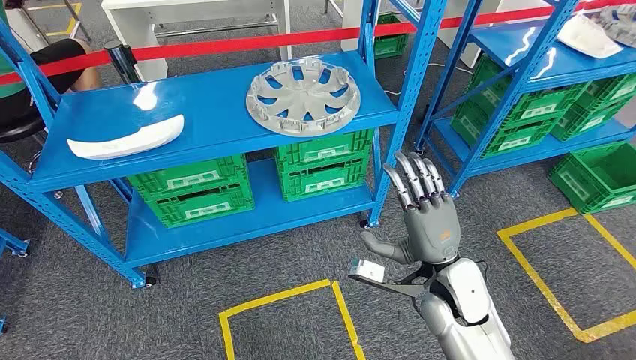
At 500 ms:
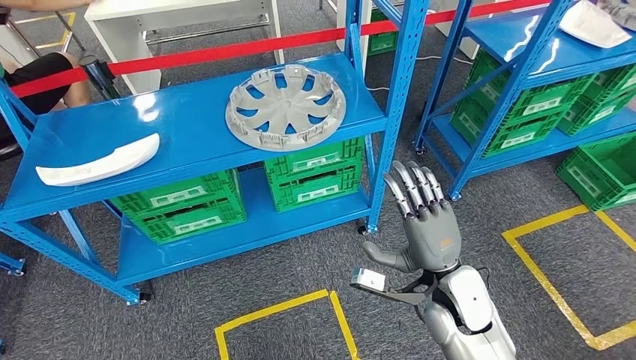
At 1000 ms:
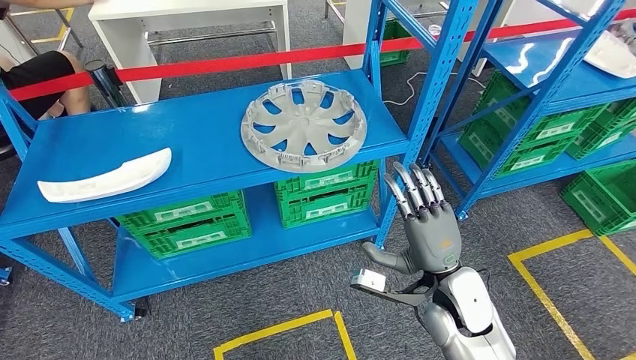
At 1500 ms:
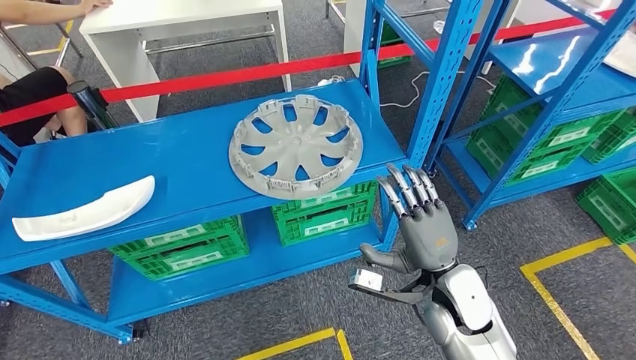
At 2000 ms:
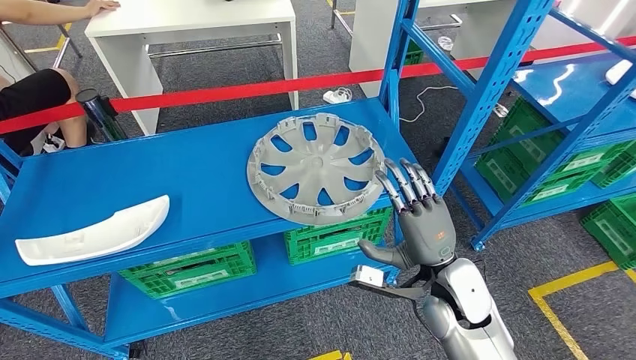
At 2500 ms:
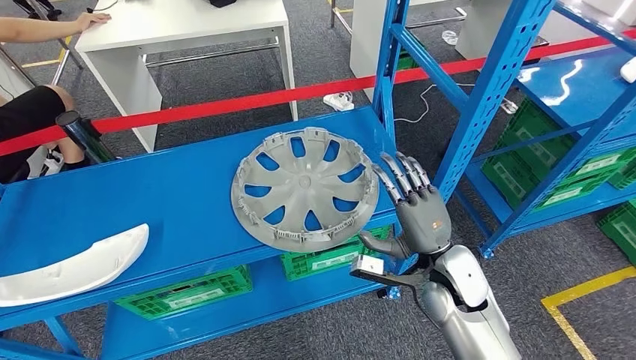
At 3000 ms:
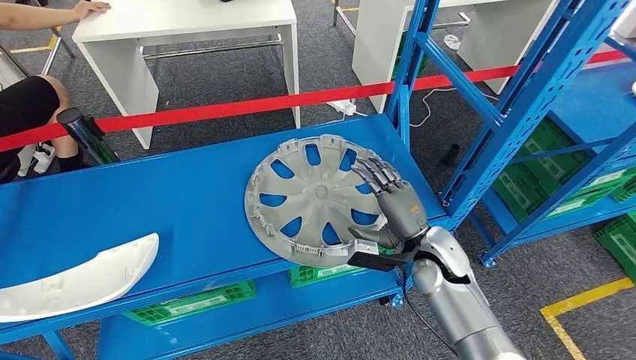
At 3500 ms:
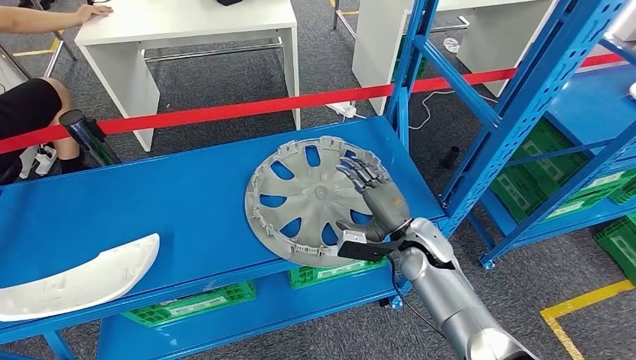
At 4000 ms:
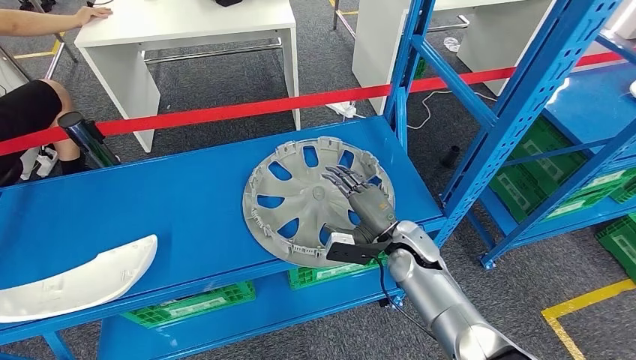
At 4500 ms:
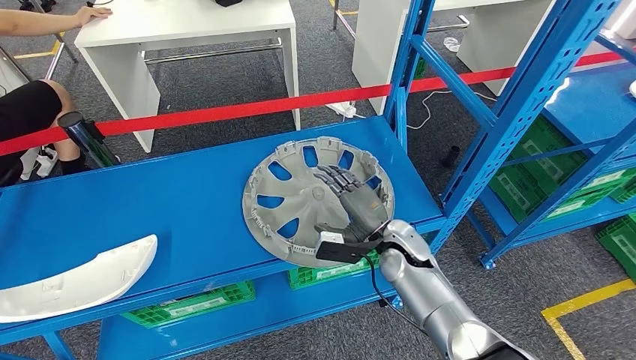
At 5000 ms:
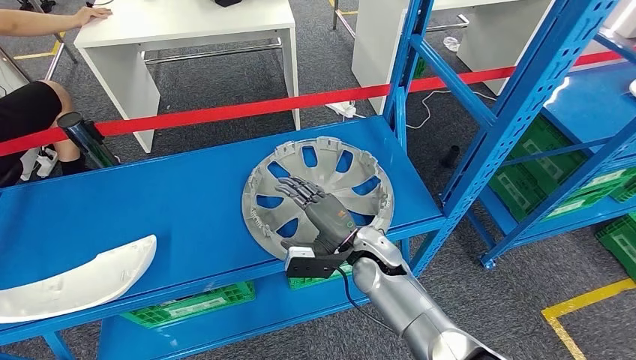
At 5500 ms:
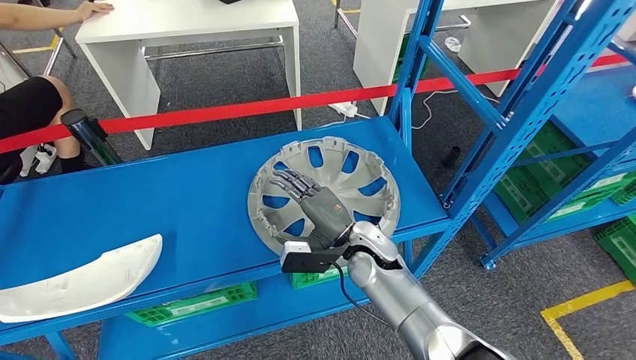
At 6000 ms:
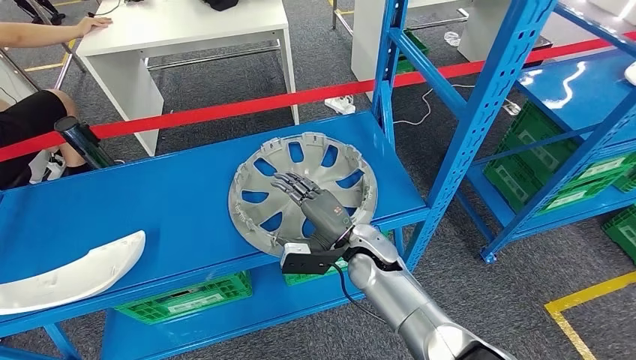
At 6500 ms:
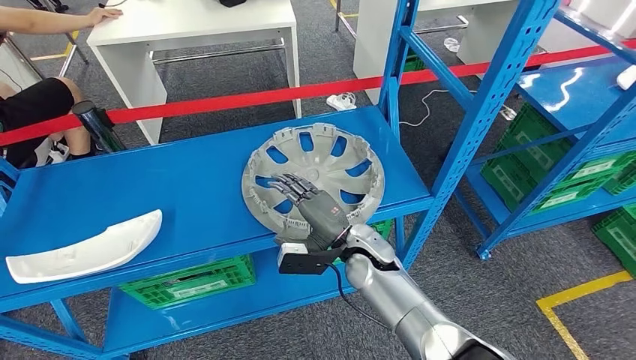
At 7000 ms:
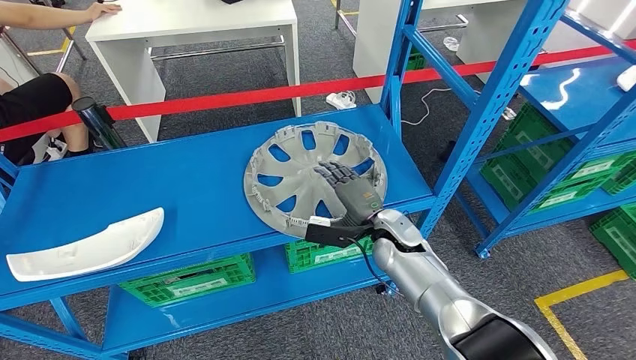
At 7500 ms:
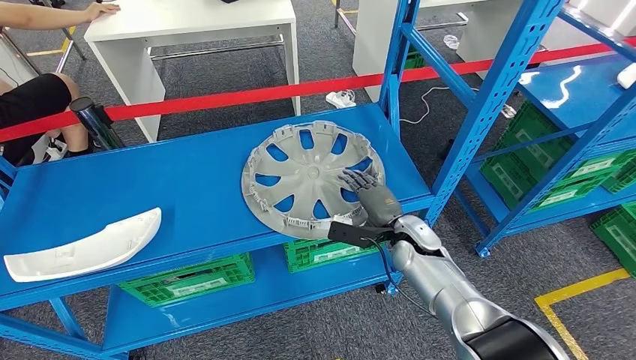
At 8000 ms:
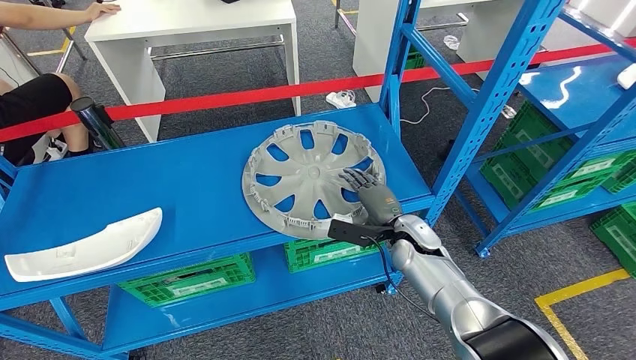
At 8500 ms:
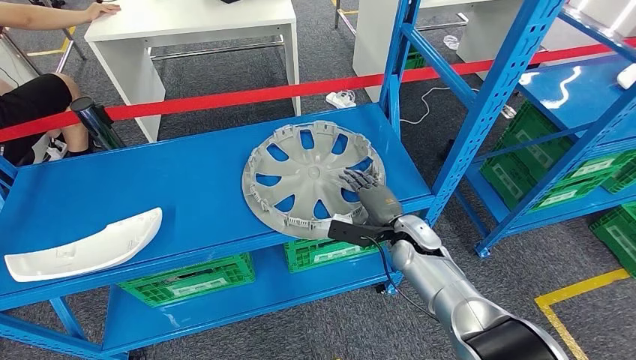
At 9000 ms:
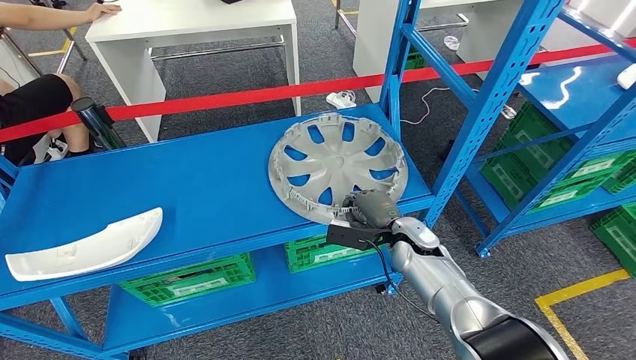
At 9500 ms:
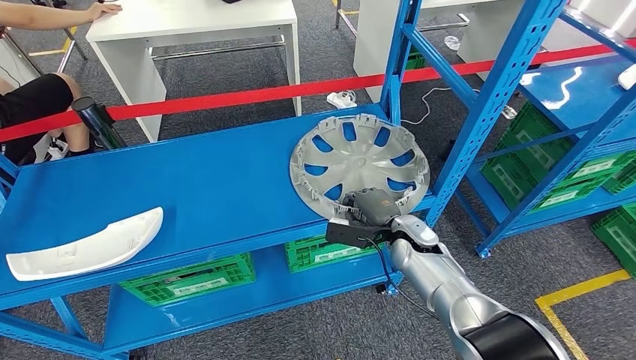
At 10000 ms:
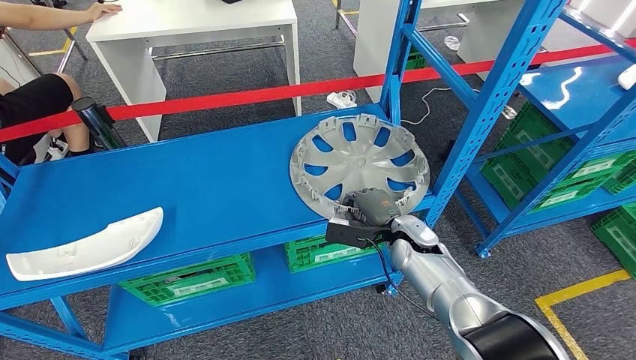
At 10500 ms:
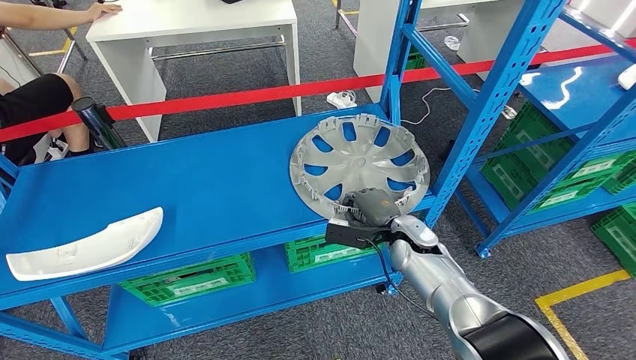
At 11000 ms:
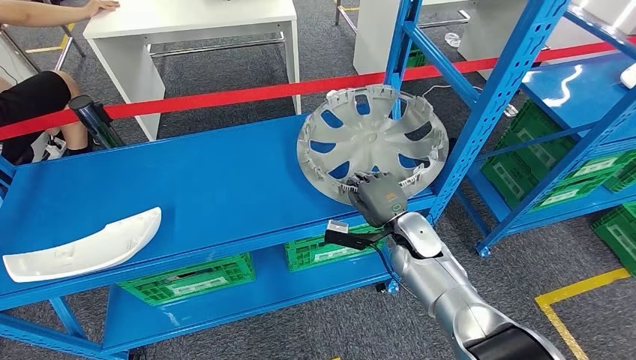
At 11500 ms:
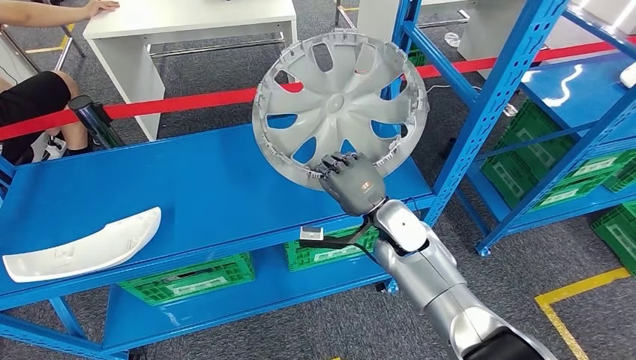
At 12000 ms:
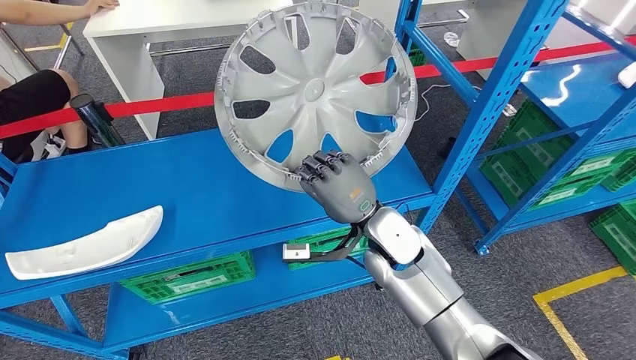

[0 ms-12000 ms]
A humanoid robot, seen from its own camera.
8000 ms to 10000 ms: The hands move only a little.

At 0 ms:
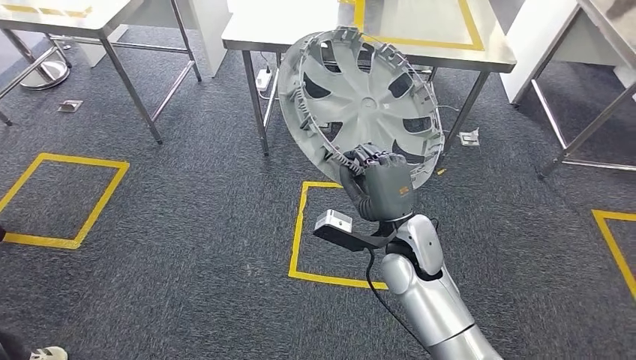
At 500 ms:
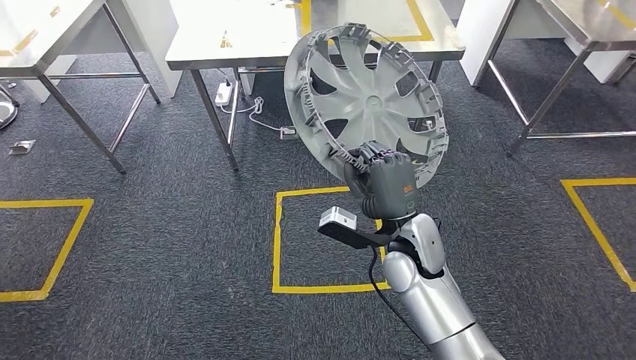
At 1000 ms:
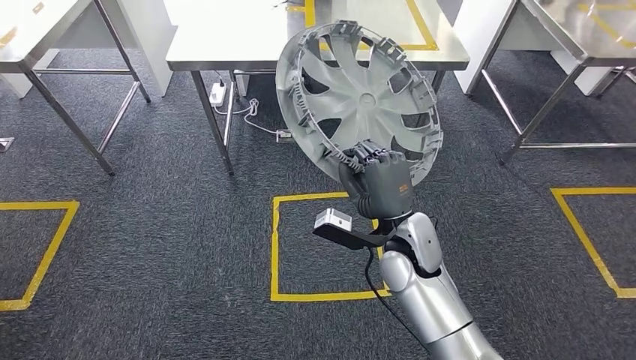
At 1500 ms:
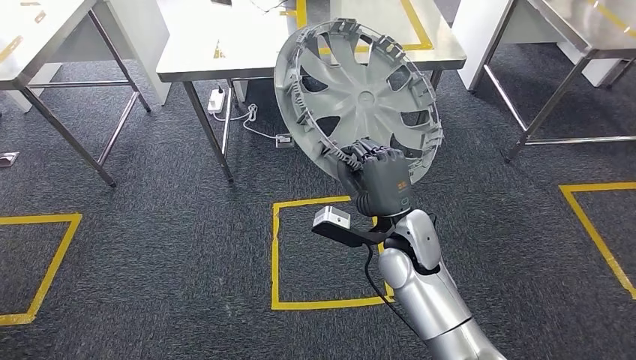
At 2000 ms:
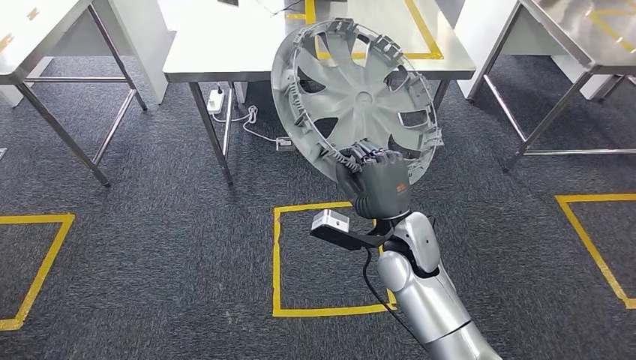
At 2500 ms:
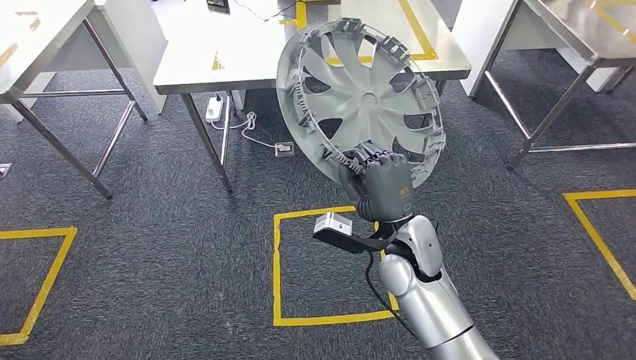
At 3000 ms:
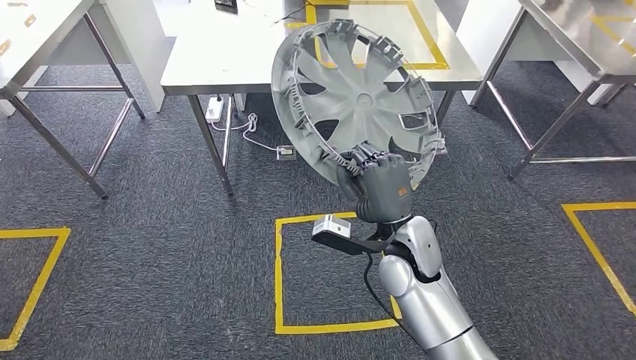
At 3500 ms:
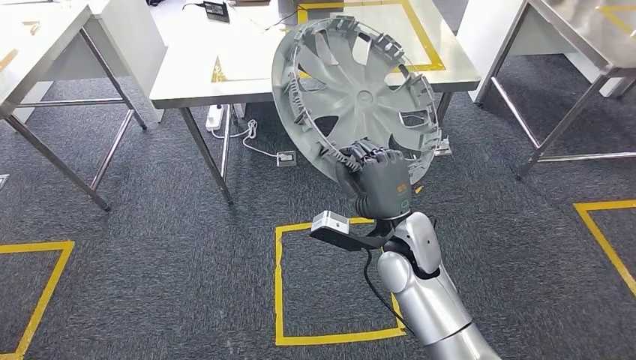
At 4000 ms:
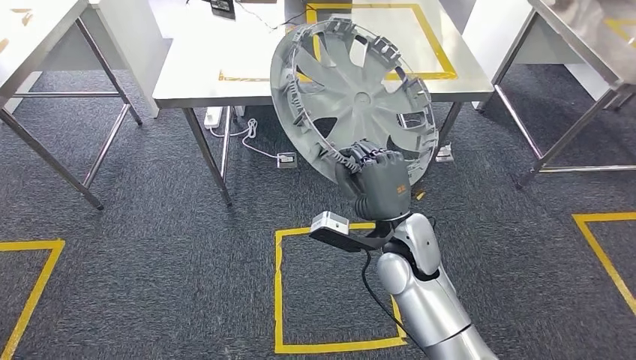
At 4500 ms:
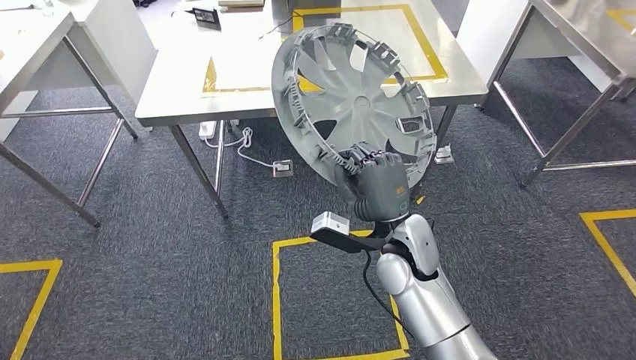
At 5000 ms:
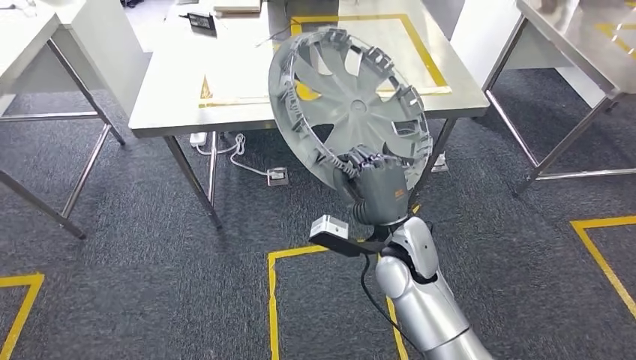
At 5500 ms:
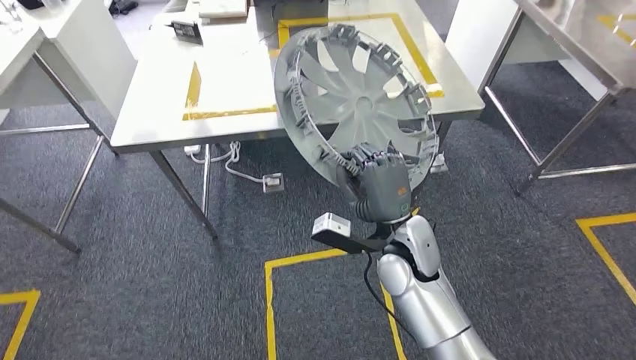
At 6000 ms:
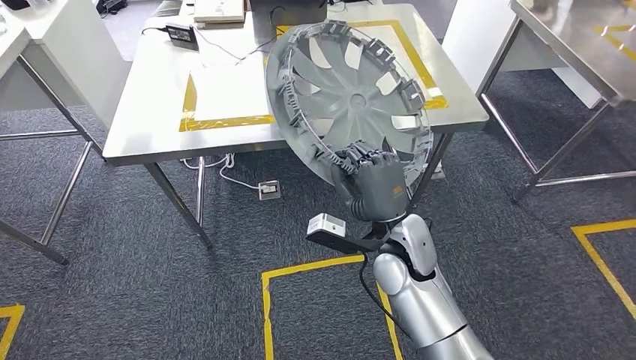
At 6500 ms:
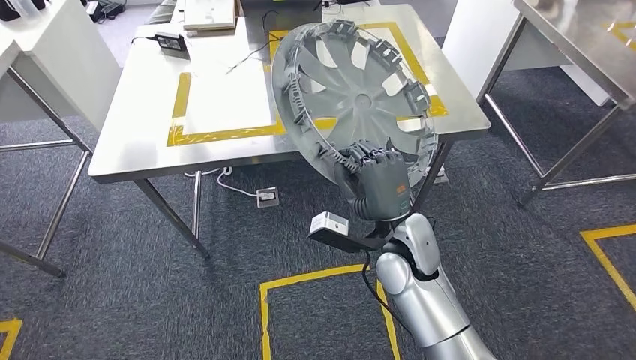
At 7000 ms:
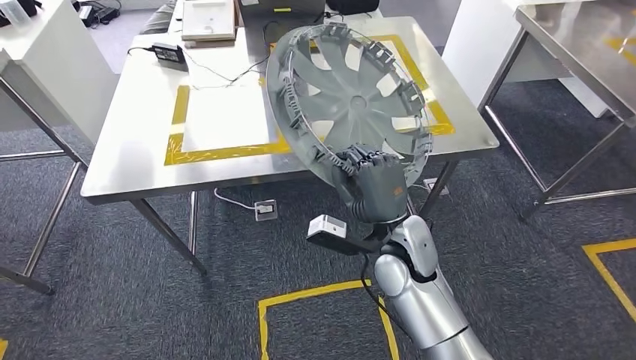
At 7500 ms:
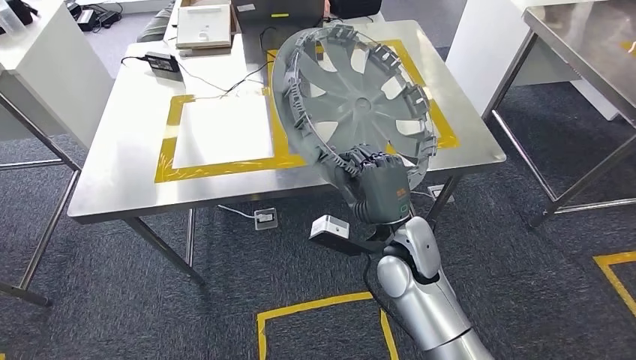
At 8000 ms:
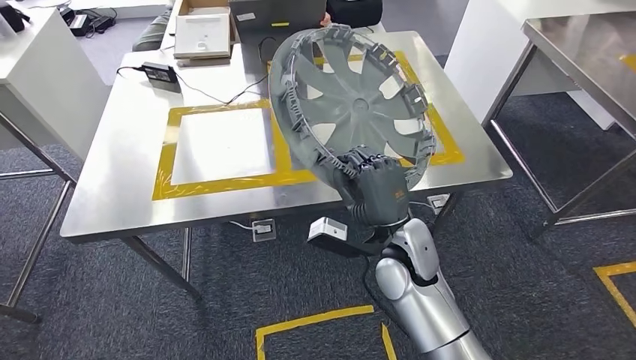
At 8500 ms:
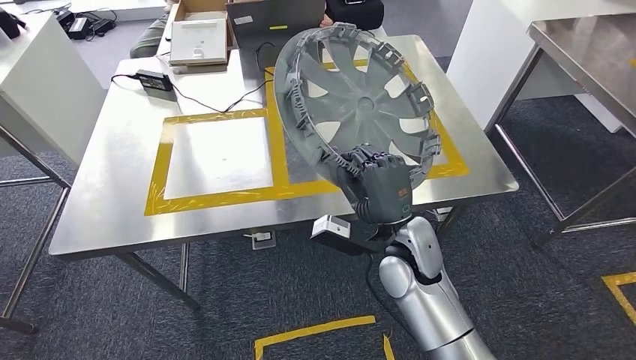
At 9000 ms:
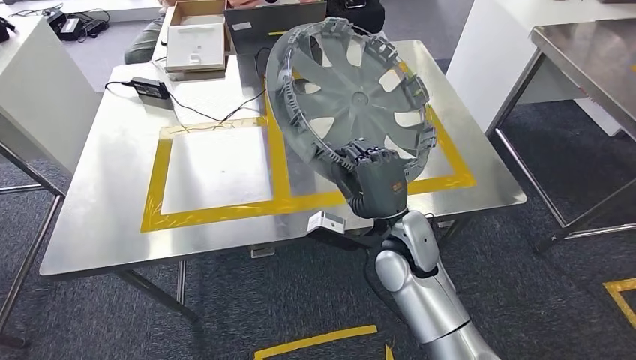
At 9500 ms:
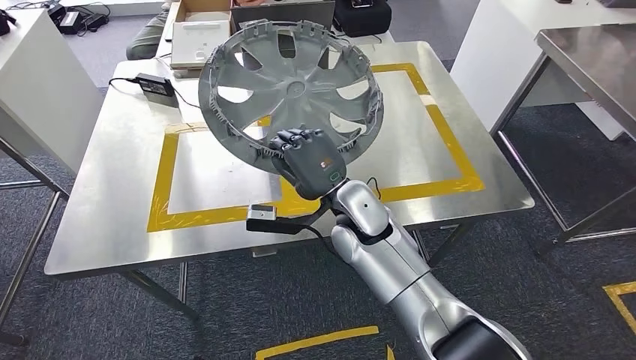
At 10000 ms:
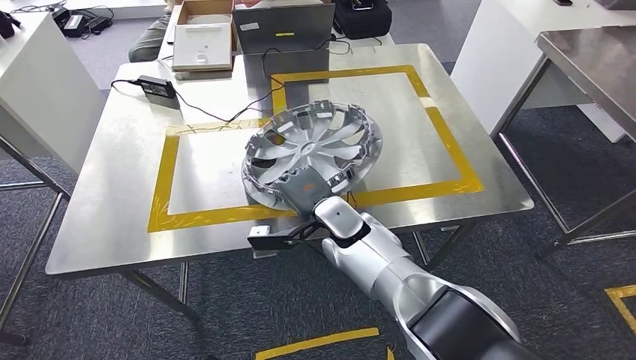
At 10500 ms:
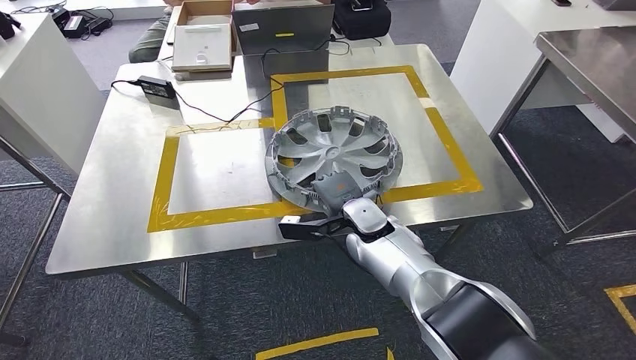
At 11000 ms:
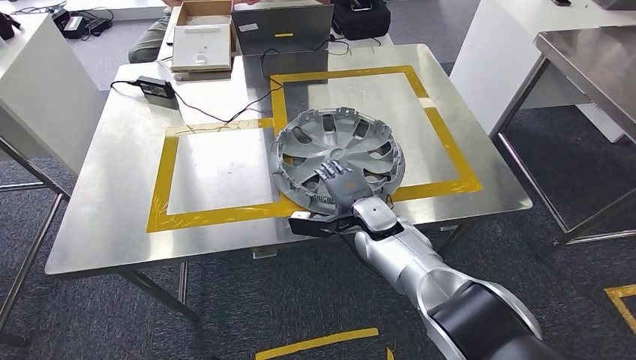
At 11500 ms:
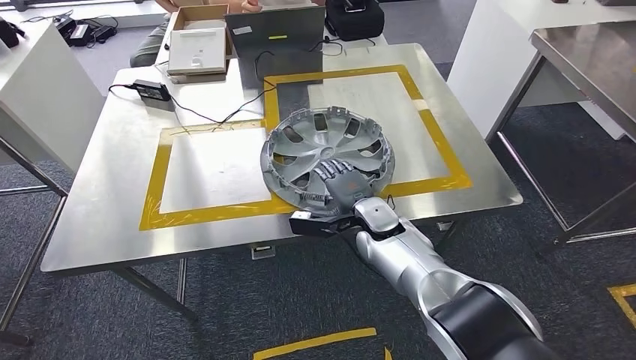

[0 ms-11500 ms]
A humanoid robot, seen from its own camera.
Step, 0 ms to 8500 ms: Move the small parts to the workbench.
